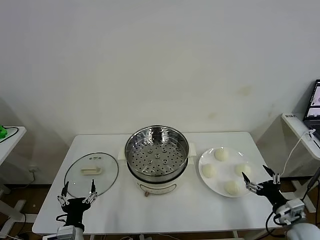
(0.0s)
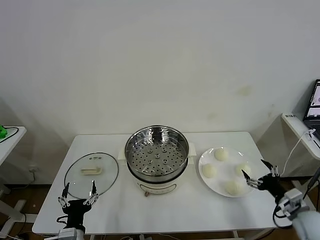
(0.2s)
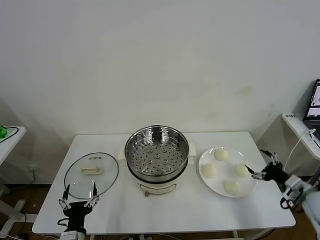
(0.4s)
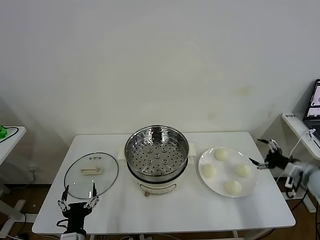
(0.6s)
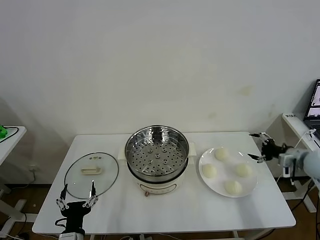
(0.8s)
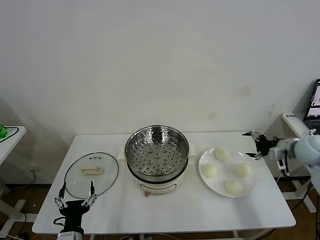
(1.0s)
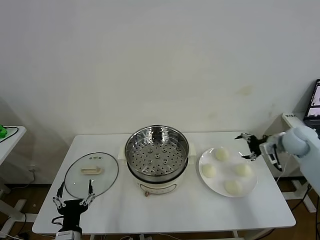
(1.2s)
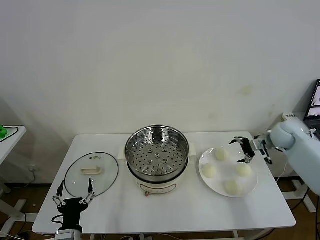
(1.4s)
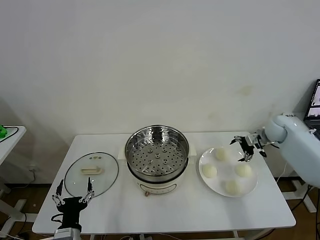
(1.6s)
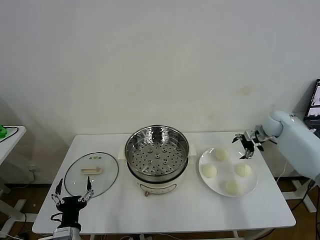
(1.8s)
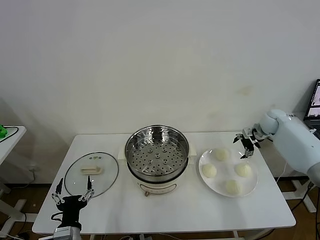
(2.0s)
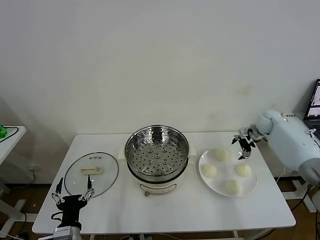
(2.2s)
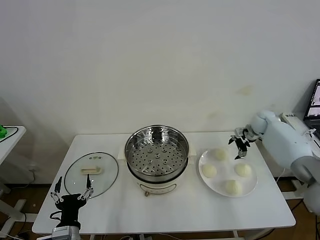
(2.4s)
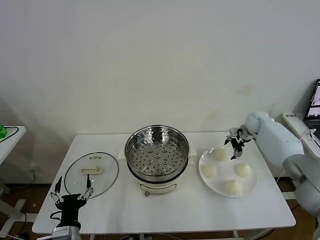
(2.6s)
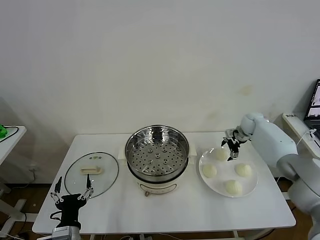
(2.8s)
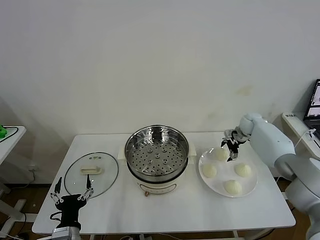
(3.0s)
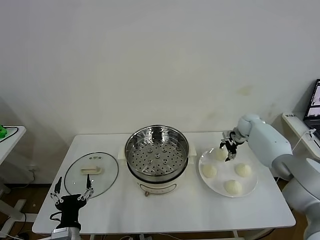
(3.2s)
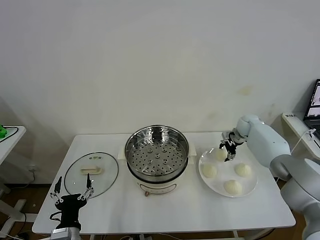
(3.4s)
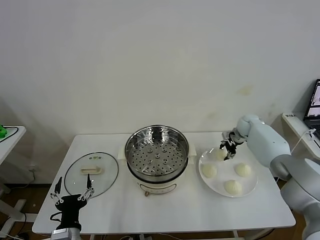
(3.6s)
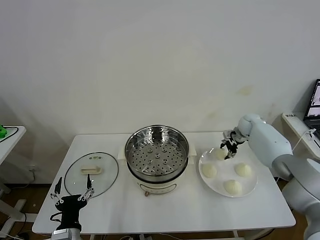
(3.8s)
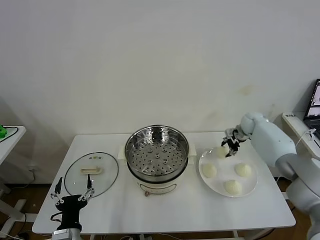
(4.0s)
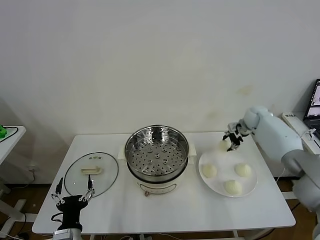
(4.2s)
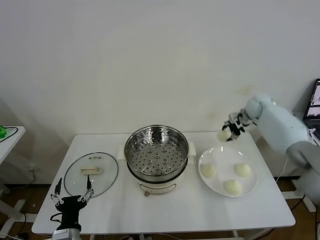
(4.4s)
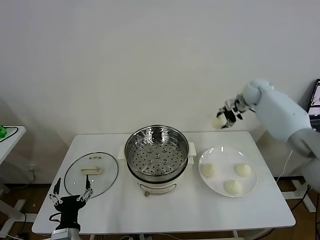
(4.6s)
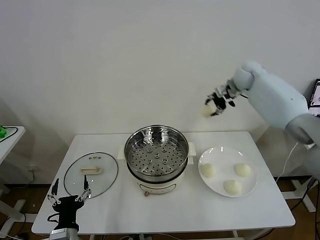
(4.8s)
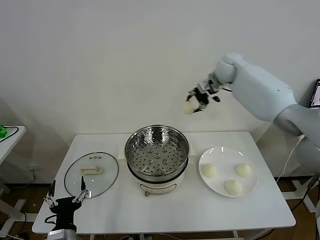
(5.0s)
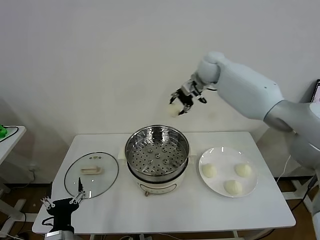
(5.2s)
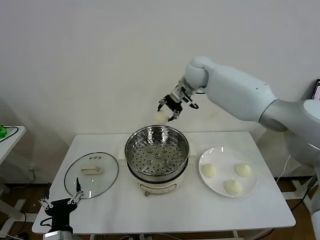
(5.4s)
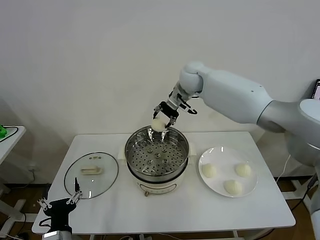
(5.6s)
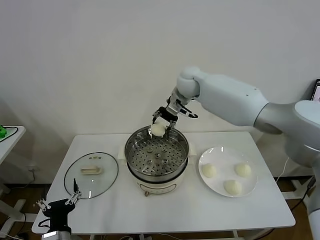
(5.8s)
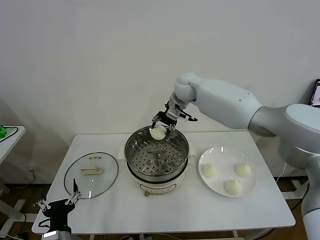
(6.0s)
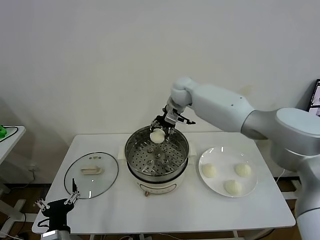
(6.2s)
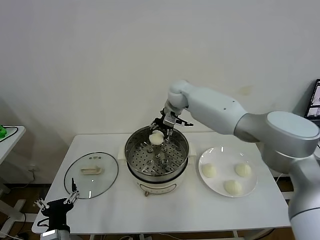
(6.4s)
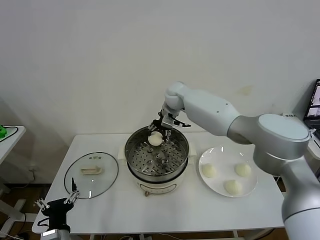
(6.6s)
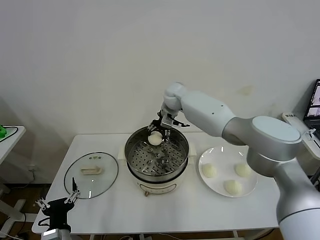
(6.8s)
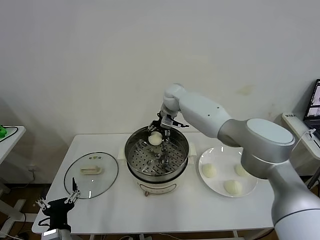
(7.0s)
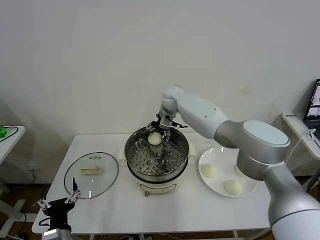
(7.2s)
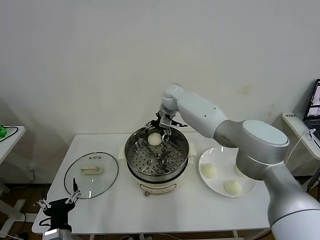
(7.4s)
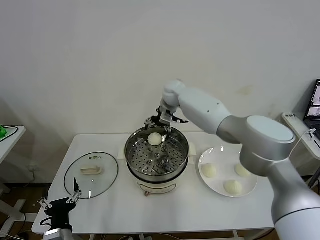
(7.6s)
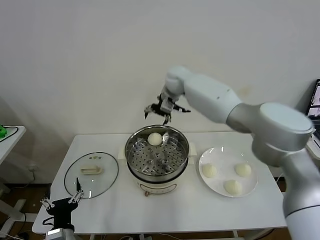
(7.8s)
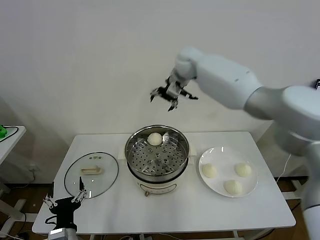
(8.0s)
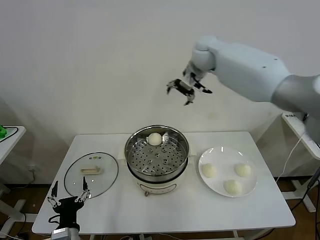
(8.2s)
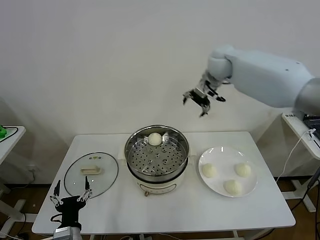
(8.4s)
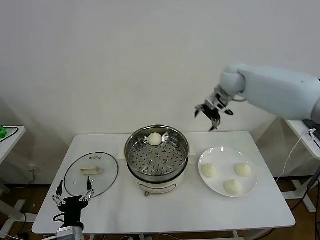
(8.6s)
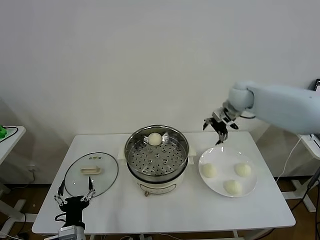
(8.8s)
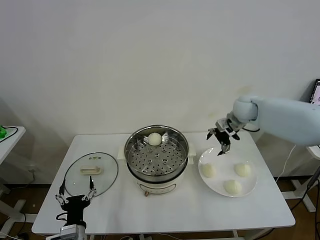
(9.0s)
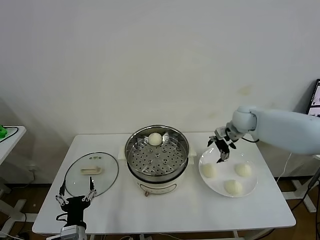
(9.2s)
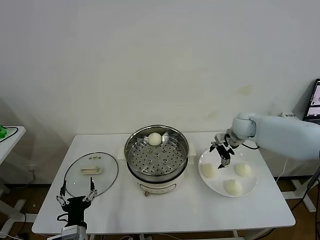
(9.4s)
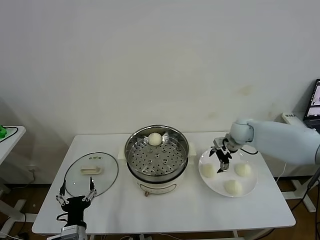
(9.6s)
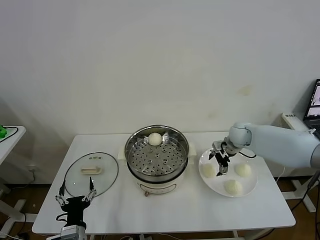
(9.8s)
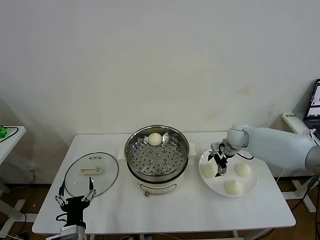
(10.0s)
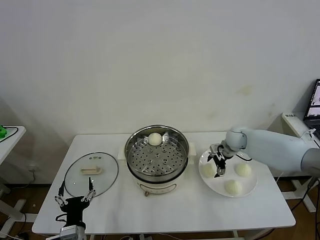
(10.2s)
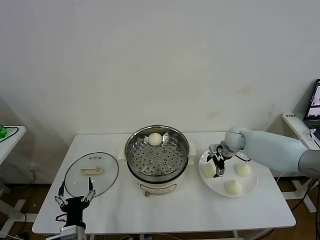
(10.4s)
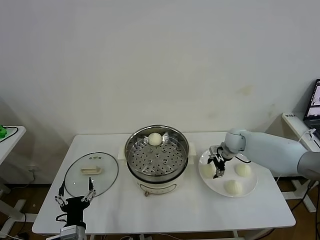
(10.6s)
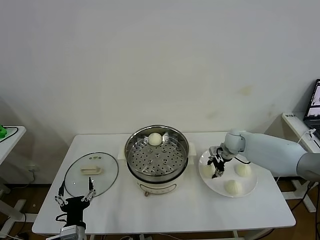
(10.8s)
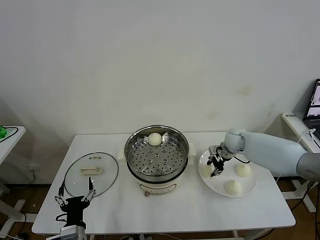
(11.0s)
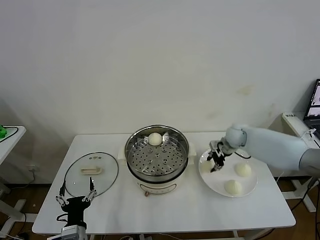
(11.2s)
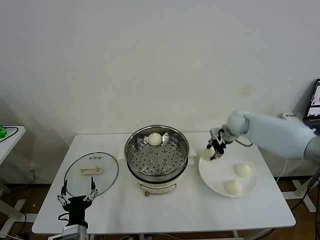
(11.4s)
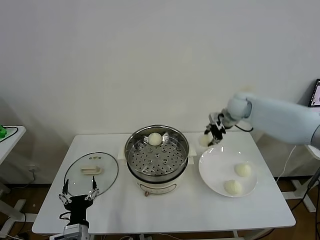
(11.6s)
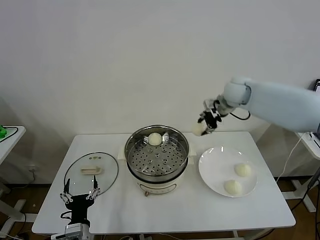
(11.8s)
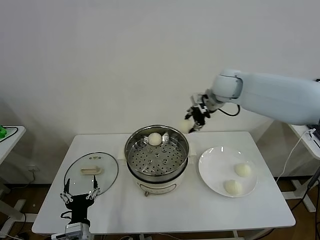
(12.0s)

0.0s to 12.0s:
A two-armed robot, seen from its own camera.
Task of the whole recording: take steamed baozi put them in steamer then cover it.
Step, 0.0s to 3.6s: Grasp the baozi in the plate with right gripper.
Step, 3.8s to 7.2s: Place the baozi on the steamer with right gripper.
Step, 7.4s to 10.8s: Grasp the baozi in the plate with right gripper.
1.6s to 3.0s: The right gripper moves forward, to the left and downward, about 10 cm.
3.0s to 4.4s: The right gripper heads upward, covering some 15 cm, and closes.
4.4s to 6.0s: The right gripper shifts approximately 30 cm to the left.
6.0s to 7.6s: The right gripper opens up.
7.6s to 9.0s: The right gripper goes some 25 cm to the right.
9.0s to 10.4s: The right gripper heads downward, covering some 10 cm.
10.4s to 12.0s: The right gripper shifts approximately 25 cm upward and to the left, and closes up.

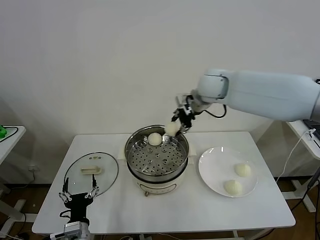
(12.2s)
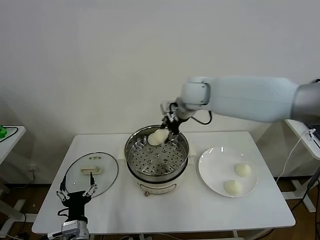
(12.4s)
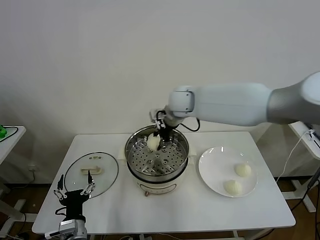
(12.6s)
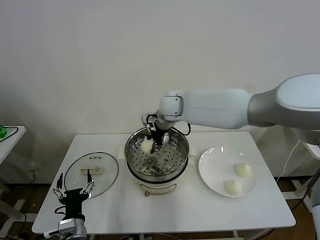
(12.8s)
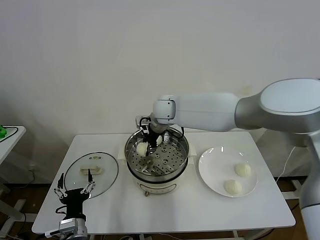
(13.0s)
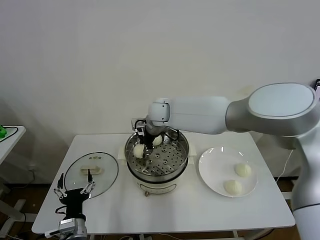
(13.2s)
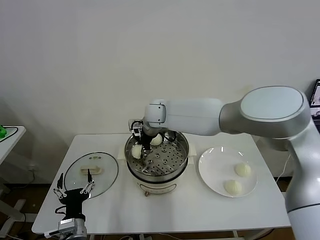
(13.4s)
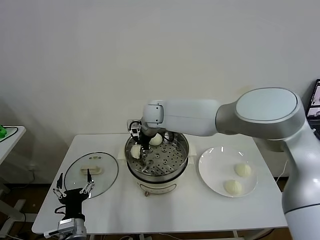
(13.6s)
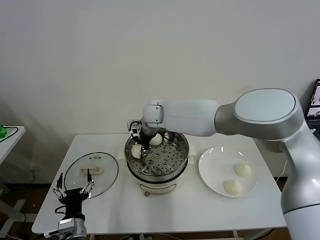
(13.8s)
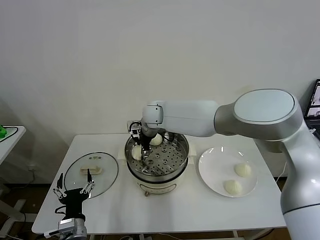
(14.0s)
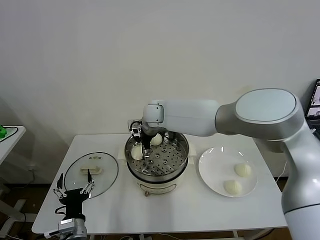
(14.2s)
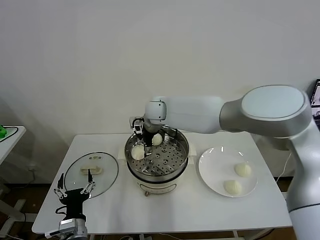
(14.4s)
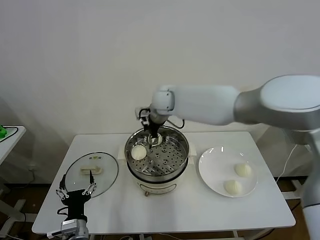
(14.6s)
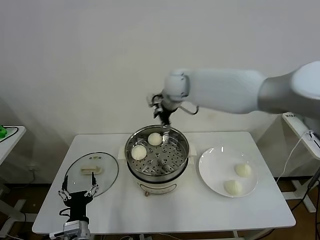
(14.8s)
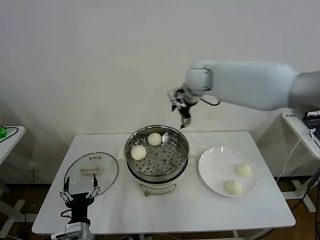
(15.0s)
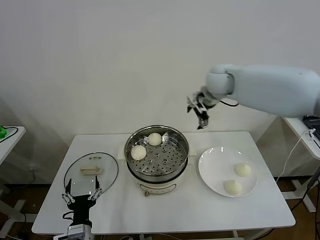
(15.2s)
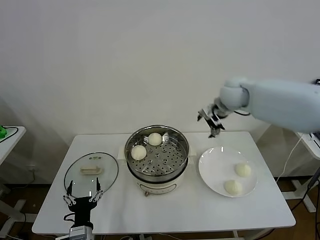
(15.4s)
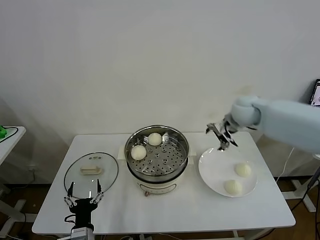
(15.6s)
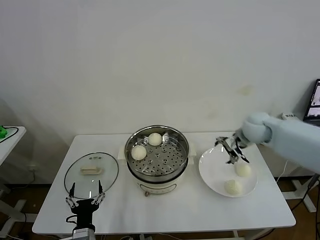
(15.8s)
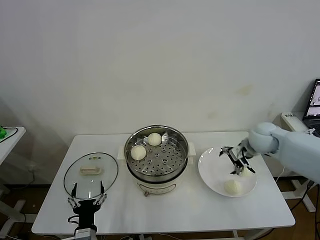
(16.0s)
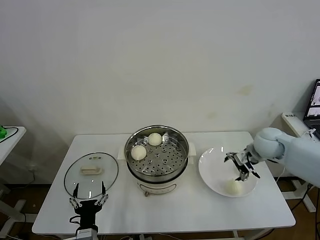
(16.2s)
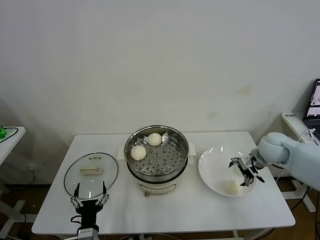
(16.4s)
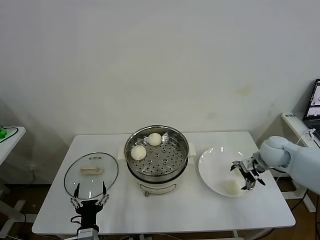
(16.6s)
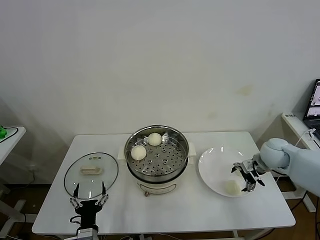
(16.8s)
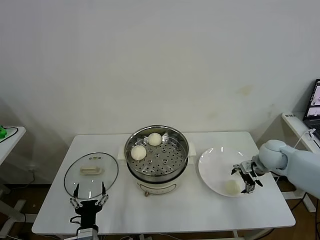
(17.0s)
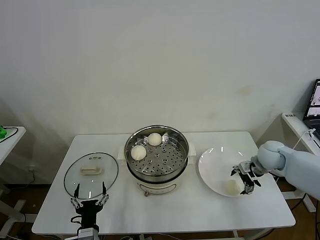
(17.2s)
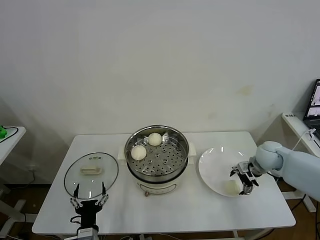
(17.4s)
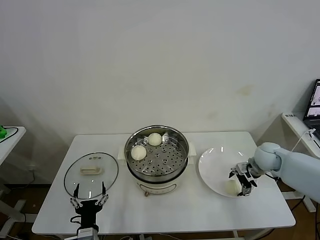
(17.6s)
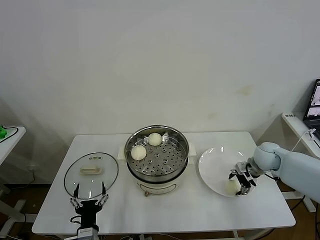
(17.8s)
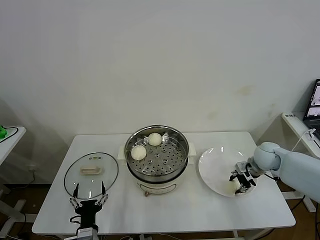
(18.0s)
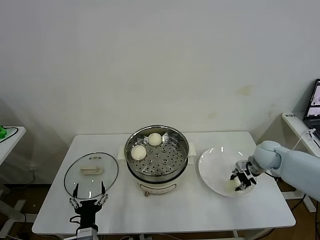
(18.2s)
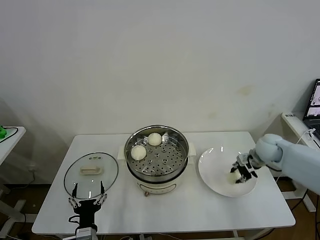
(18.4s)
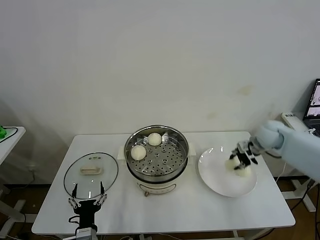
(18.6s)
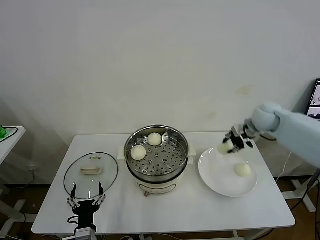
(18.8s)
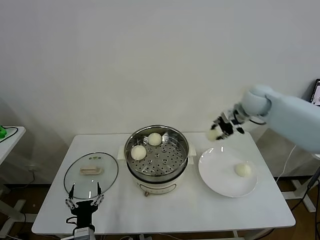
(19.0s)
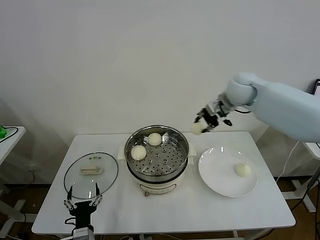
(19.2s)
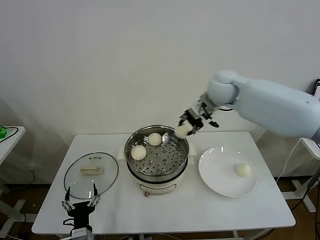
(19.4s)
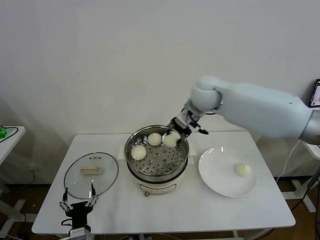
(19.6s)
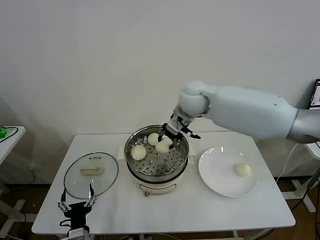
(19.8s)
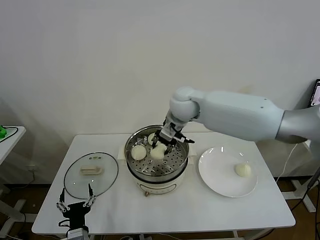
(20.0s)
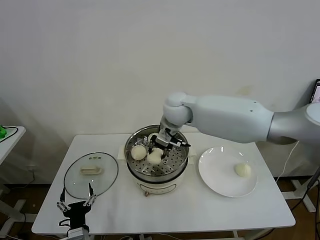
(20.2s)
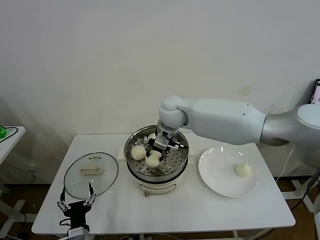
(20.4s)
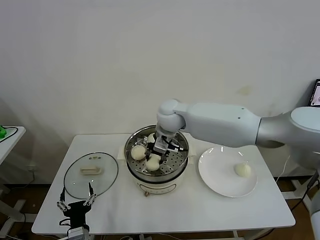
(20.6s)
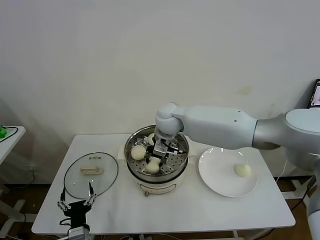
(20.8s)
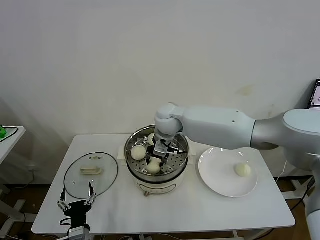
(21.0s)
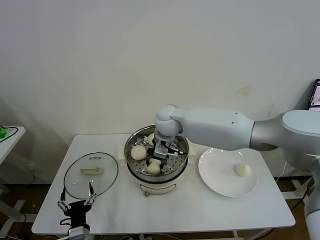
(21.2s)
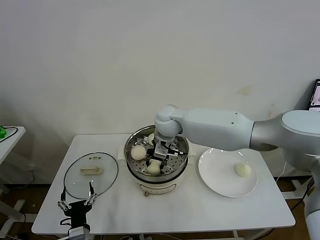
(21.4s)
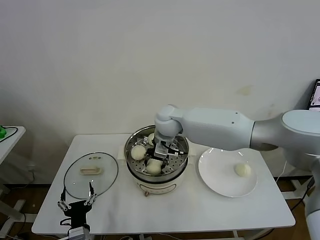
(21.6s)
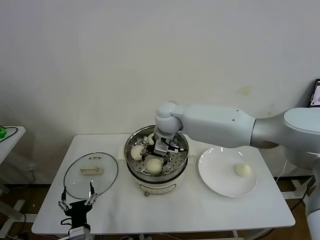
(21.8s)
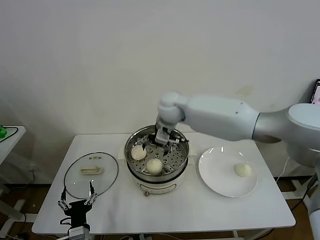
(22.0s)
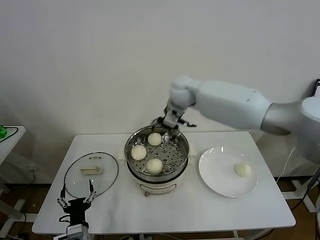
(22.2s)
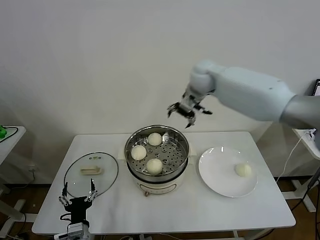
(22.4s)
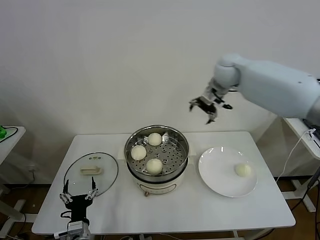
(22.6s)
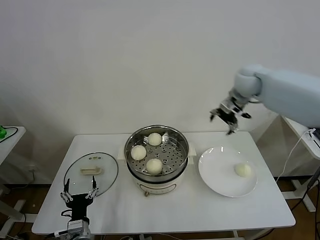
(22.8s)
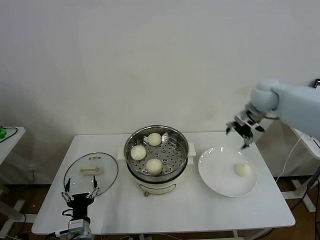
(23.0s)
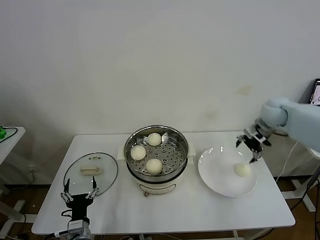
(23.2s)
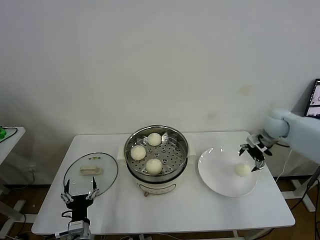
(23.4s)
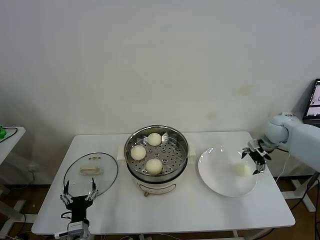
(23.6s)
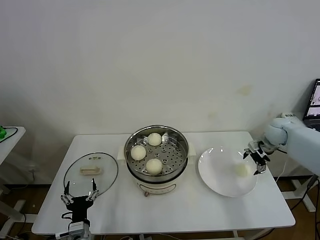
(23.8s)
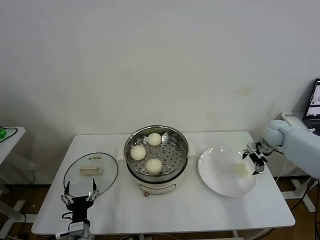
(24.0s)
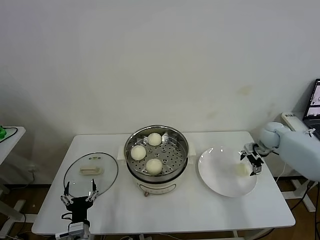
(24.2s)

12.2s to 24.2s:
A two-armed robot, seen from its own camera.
Task of the whole recording: take steamed baozi put them in steamer then cover it.
Step, 12.2s to 14.0s: Place the baozi on the steamer with right gripper.
Step, 14.4s to 18.2s: Grasp the baozi in the plate with right gripper.
Step, 18.4s to 21.8s: Place the baozi on the steamer with right gripper.
12.2s to 13.8s: The right gripper travels to the left and downward by roughly 20 cm.
13.8s to 15.2s: The right gripper shifts approximately 25 cm to the right and upward, and opens up.
15.2s to 16.6s: The right gripper travels downward, to the right and backward by roughly 30 cm.
16.6s to 18.2s: The right gripper closes up.
18.2s to 19.8s: The right gripper shifts approximately 35 cm to the left and upward.
19.8s to 21.2s: The right gripper heads downward and to the left, covering about 10 cm.
21.2s to 22.6s: The right gripper goes some 25 cm to the right and upward, and opens up.
22.6s to 24.2s: The right gripper moves downward and to the right, some 30 cm.
